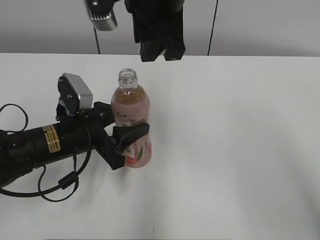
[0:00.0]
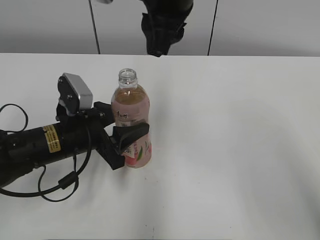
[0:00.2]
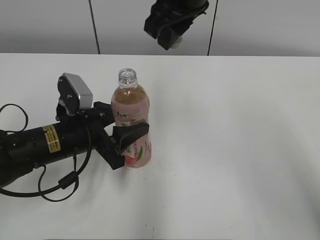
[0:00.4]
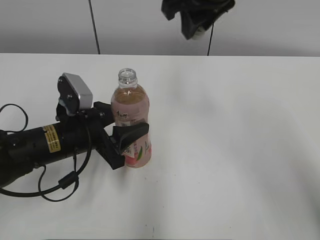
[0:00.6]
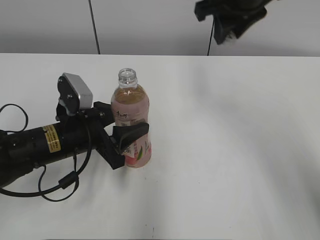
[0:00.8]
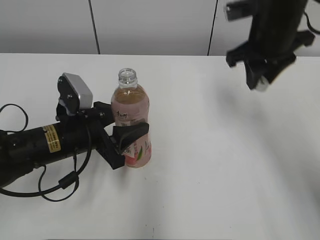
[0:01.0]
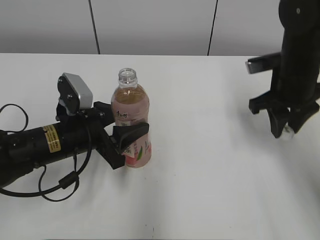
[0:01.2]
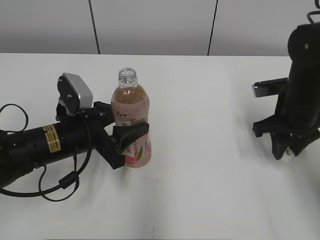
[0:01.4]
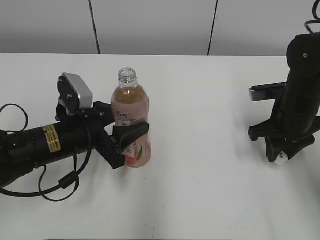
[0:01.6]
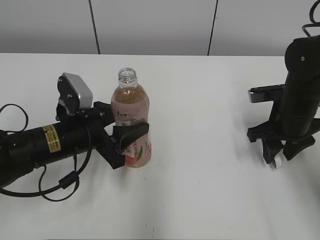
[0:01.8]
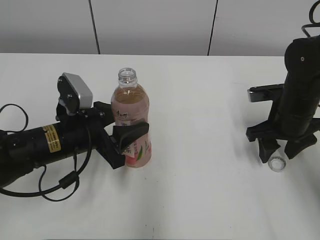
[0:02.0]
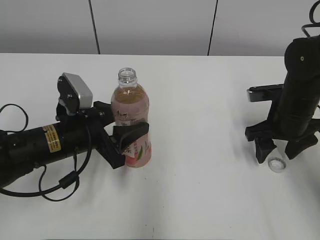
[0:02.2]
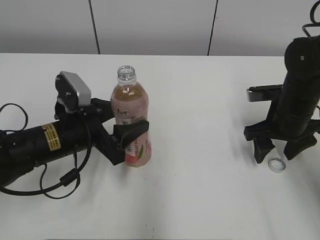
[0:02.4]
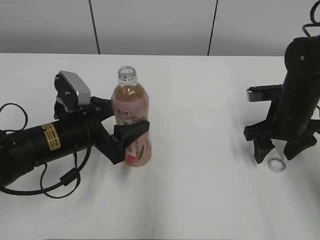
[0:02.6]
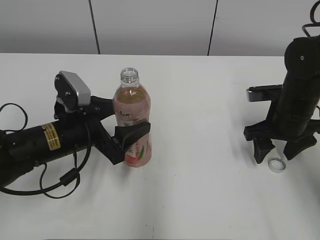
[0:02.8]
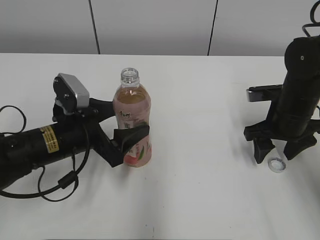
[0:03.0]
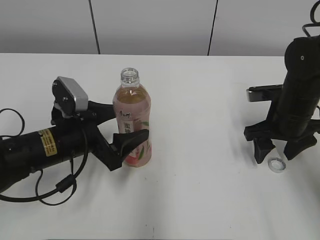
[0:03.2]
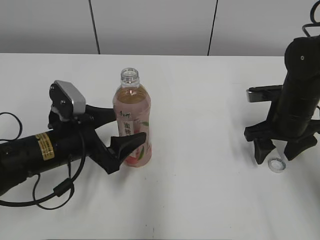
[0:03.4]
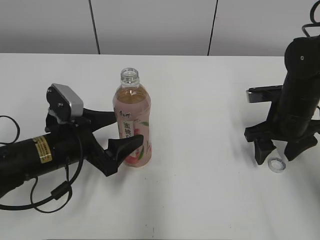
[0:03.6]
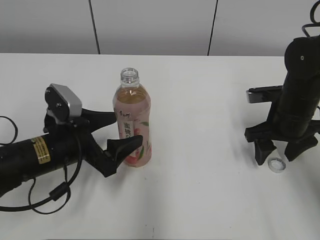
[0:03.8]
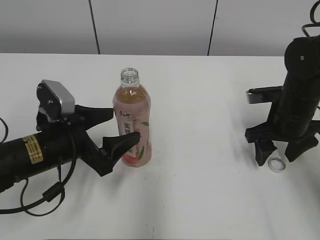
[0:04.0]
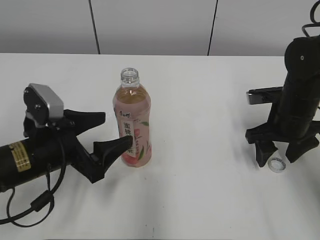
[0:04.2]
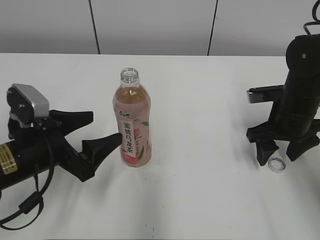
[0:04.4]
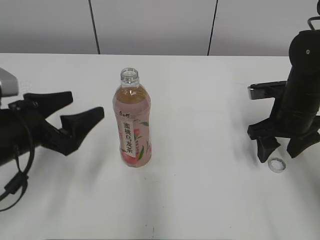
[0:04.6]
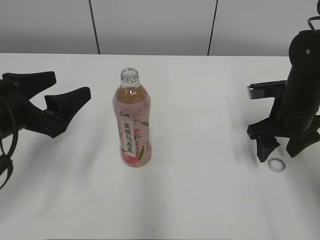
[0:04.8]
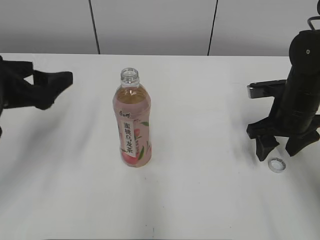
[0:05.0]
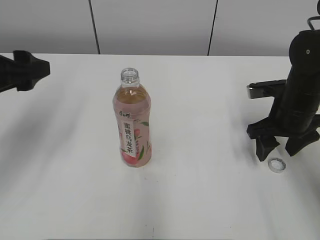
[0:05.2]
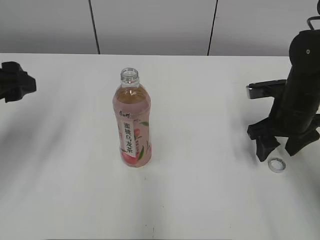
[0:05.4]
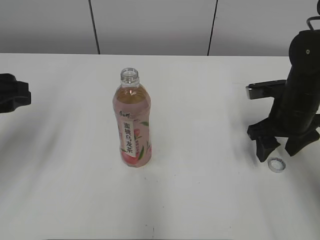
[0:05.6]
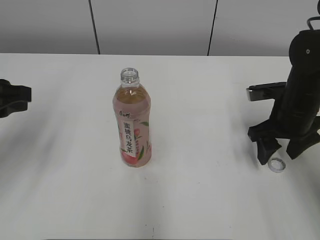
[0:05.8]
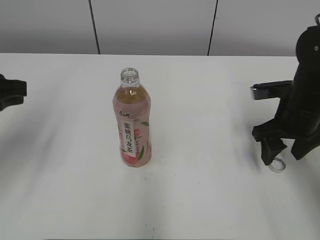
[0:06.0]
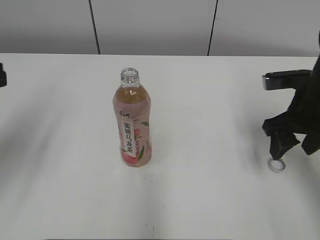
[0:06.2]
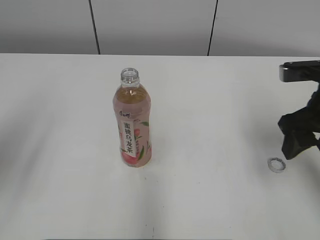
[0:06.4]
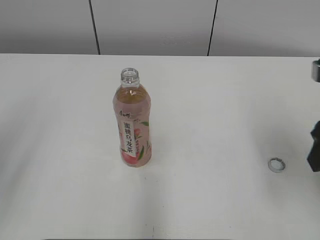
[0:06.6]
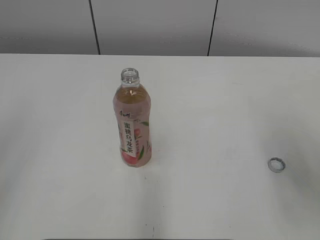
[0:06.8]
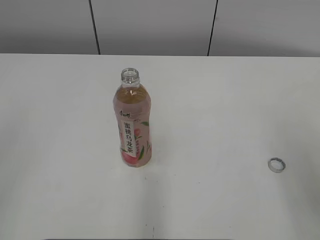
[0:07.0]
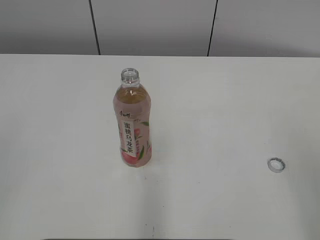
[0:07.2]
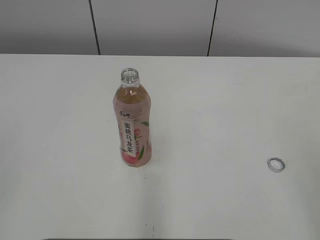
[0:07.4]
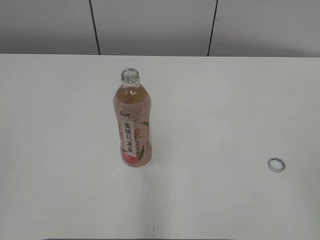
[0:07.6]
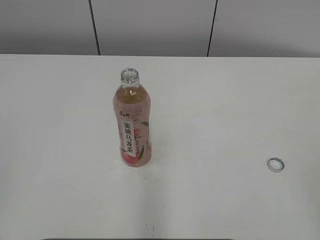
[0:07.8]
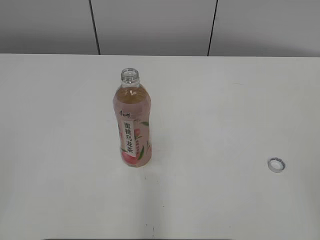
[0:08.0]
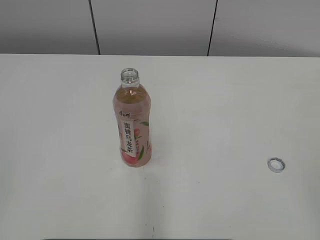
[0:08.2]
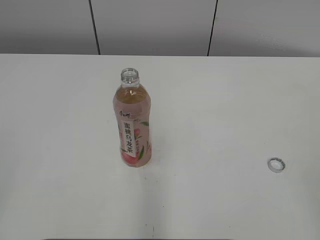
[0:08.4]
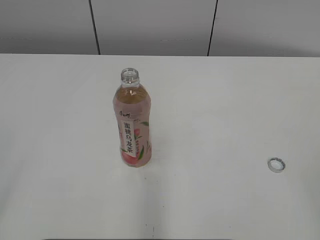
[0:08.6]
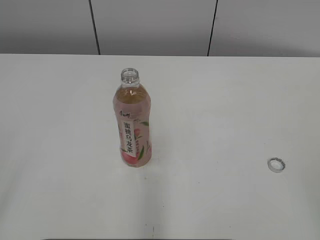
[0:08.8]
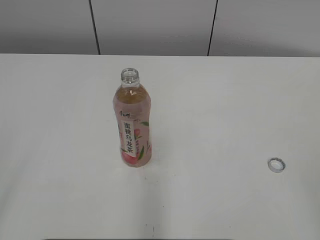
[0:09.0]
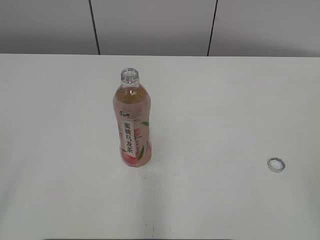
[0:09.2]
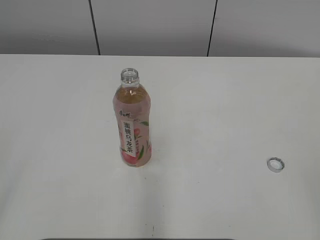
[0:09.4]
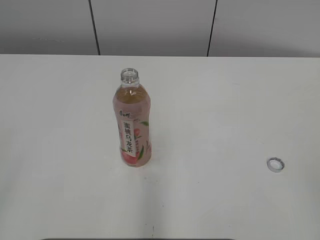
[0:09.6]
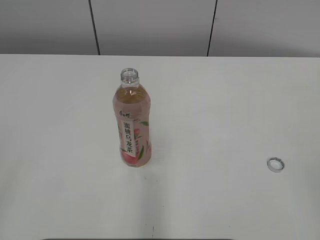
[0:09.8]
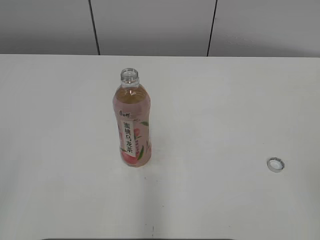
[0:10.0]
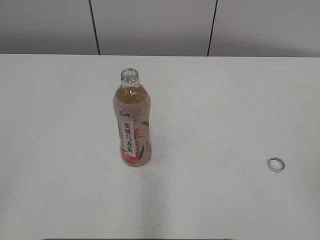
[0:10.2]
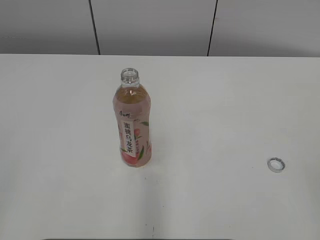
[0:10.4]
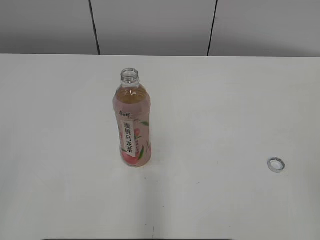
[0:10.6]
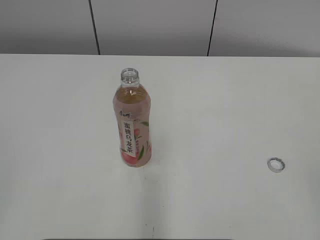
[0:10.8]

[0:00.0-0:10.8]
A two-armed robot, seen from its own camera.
Step, 0:00.0 to 0:02.0: Place the bottle cap on the right.
Step, 0:02.2 to 0:03.8: Place the Peach Oolong Tea with the left hand.
0:00.0 to 0:01.6: The right gripper shifts roughly 30 cm to the right and downward.
0:01.6 to 0:03.0: The right gripper opens. Meanwhile the left gripper opens.
0:03.0 to 0:04.6: The left gripper goes roughly 5 cm to the left.
0:04.6 to 0:06.2: The right gripper moves roughly 5 cm, while the left gripper goes roughly 15 cm upward and to the left, and closes its fingers.
0:06.2 to 0:07.8: The two grippers go approximately 25 cm backward.
